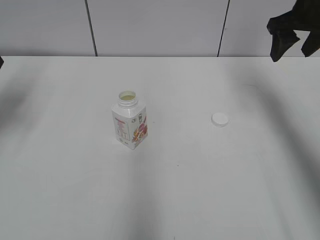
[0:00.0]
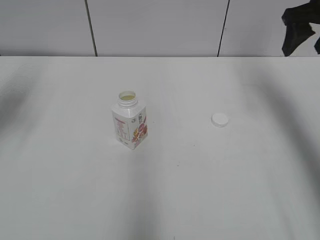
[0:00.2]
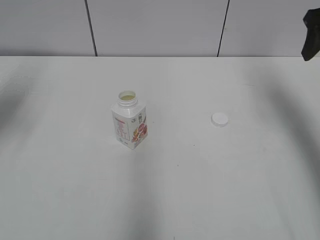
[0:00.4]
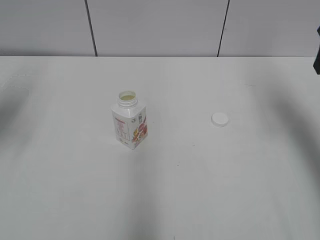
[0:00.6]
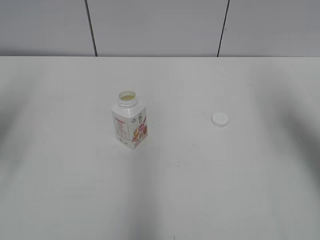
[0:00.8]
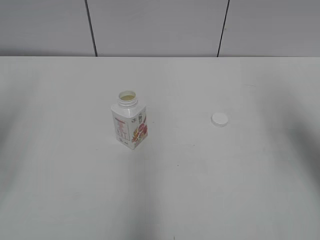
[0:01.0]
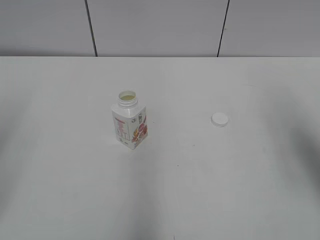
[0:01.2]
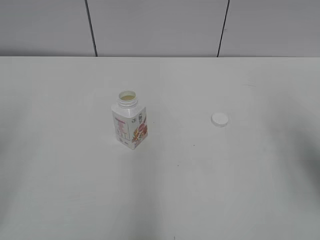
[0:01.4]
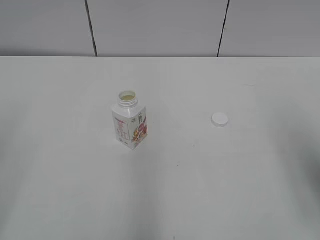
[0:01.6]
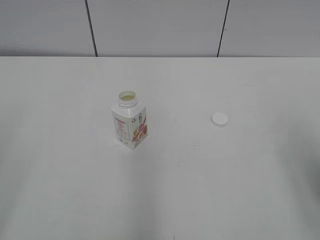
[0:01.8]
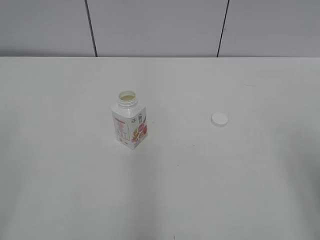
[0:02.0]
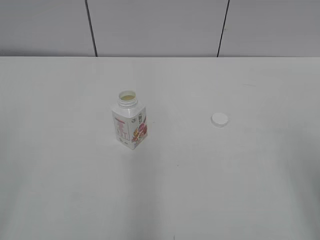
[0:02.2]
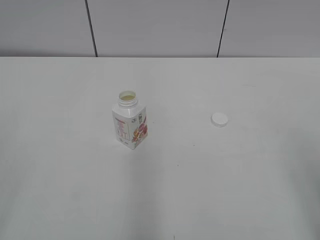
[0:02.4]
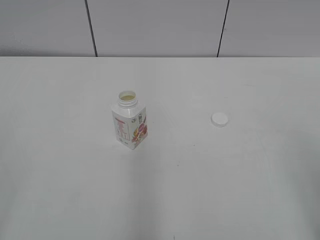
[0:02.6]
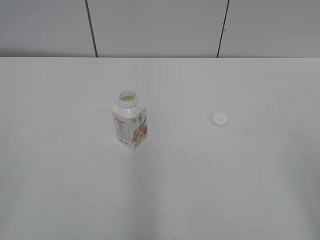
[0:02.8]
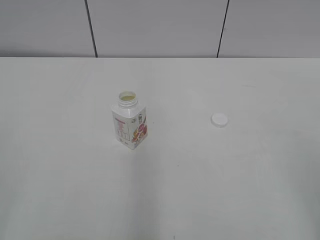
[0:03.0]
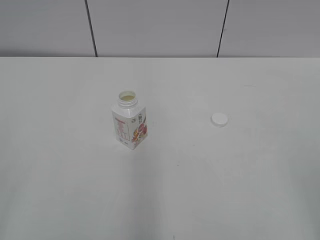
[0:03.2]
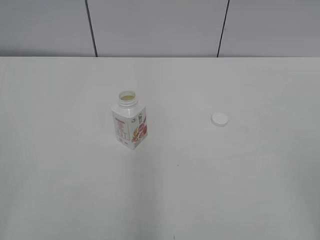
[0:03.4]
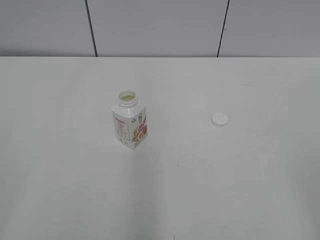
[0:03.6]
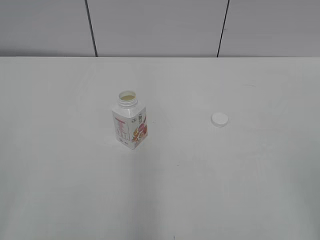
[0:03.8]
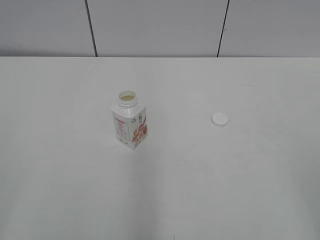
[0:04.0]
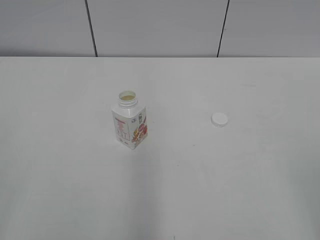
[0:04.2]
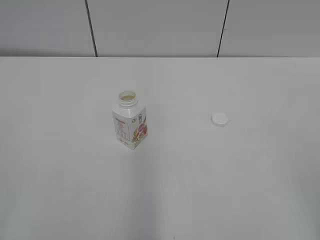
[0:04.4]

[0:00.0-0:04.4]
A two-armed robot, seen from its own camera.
0:00.0 to 0:01.4: Both grippers travel together backward, roughly 25 cm.
0:01.4 to 0:03.0: The right gripper moves backward, some 15 cm.
